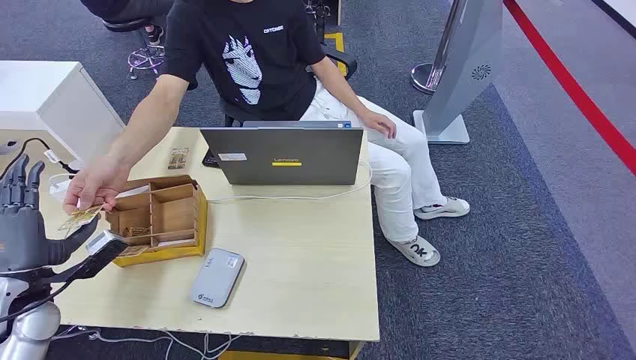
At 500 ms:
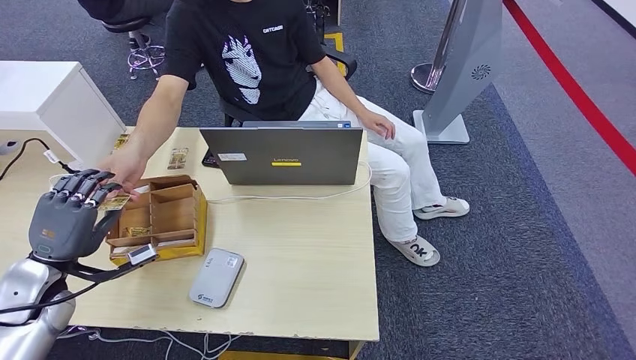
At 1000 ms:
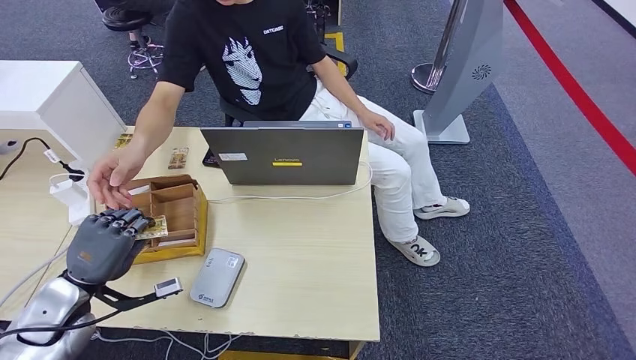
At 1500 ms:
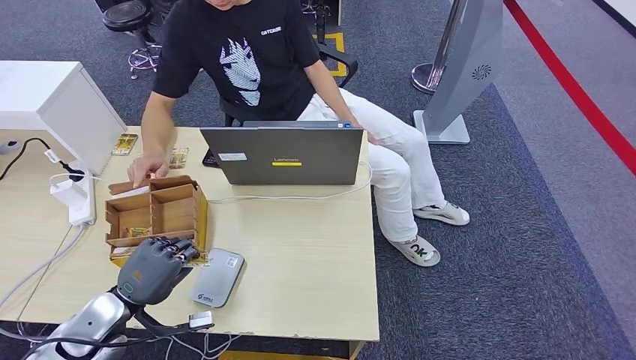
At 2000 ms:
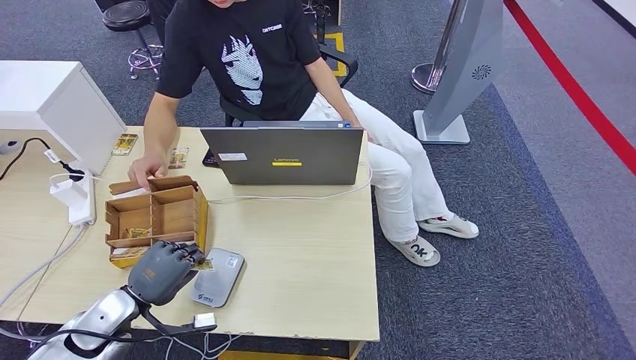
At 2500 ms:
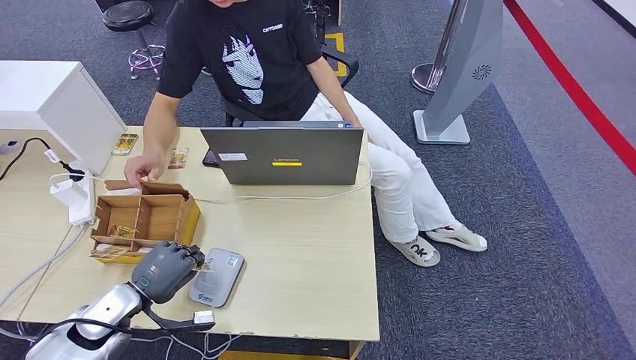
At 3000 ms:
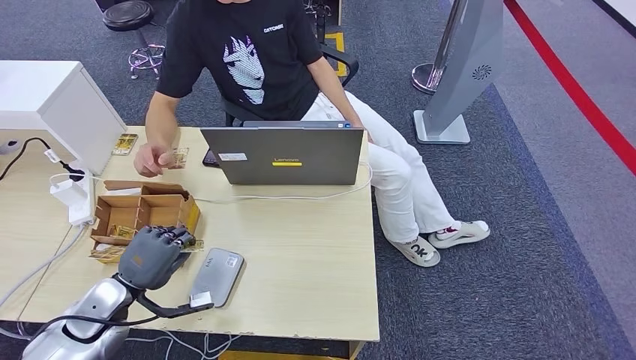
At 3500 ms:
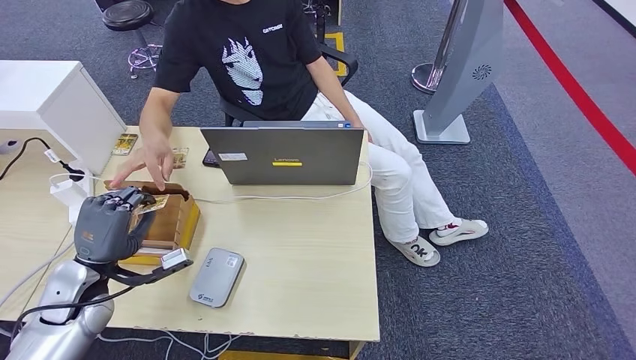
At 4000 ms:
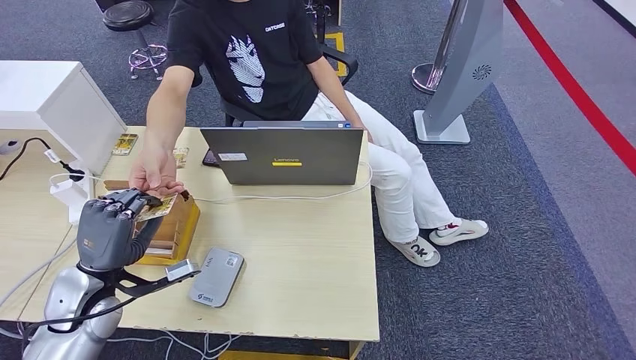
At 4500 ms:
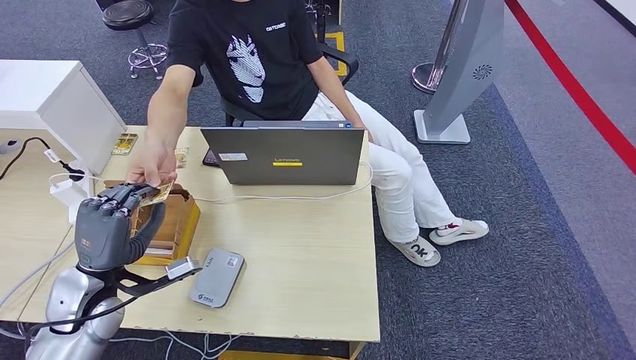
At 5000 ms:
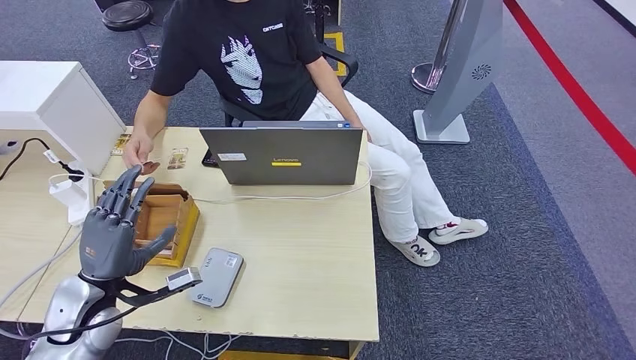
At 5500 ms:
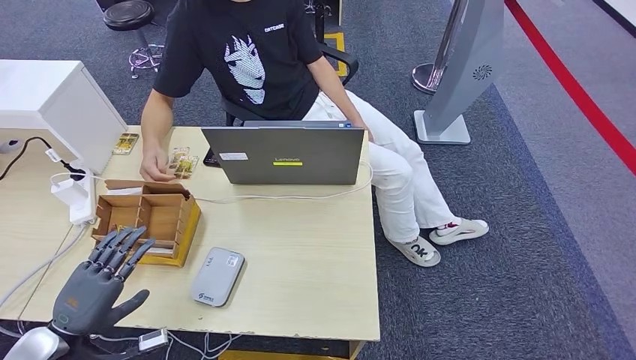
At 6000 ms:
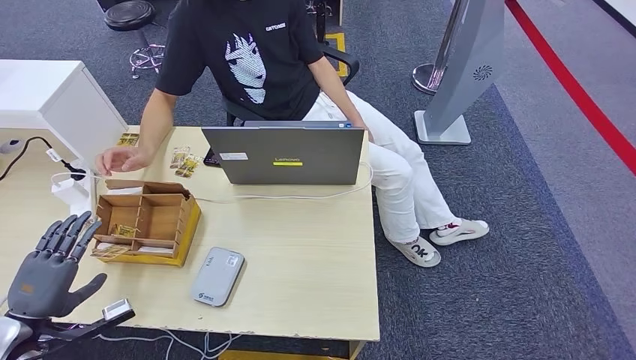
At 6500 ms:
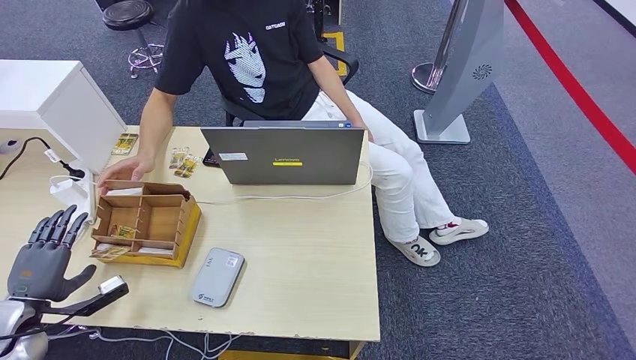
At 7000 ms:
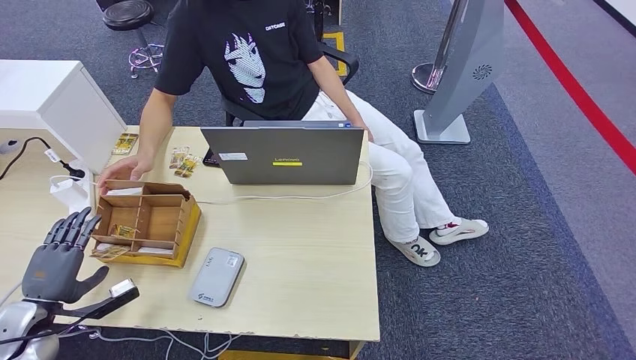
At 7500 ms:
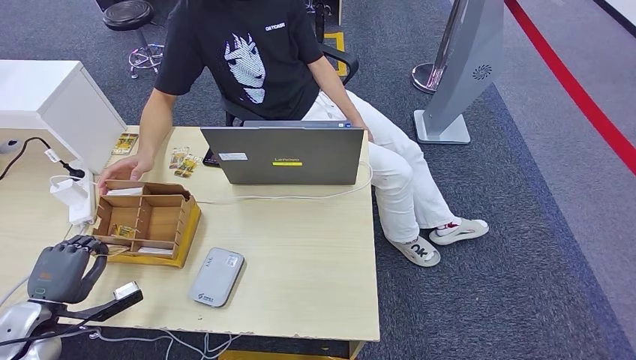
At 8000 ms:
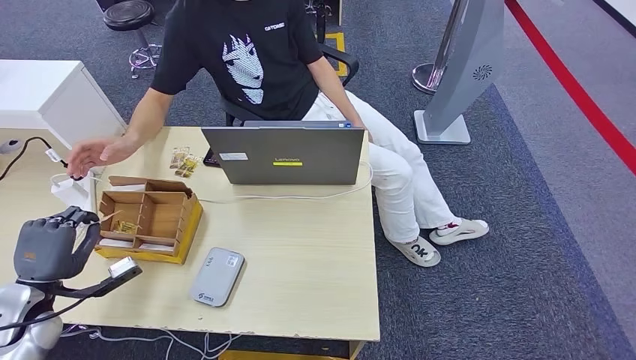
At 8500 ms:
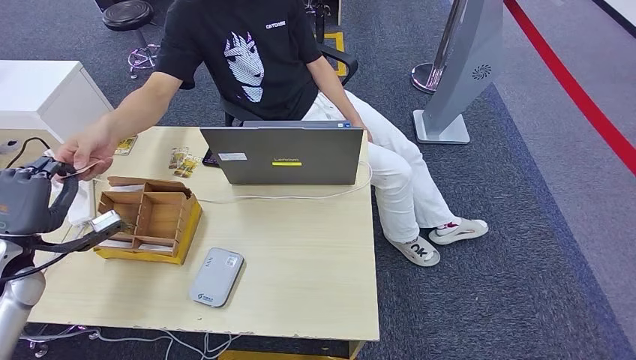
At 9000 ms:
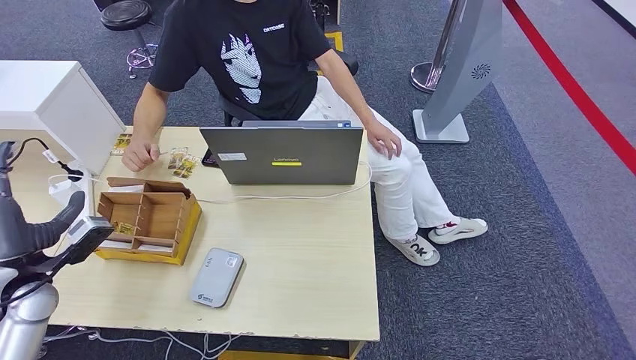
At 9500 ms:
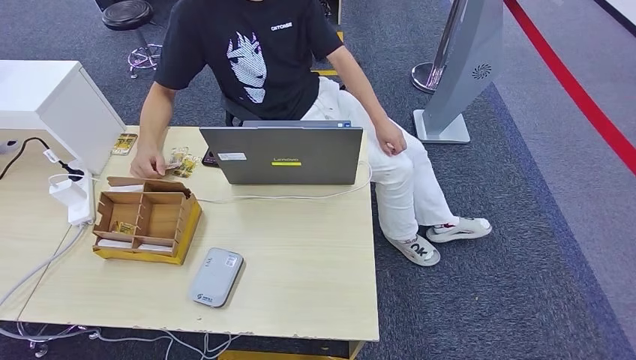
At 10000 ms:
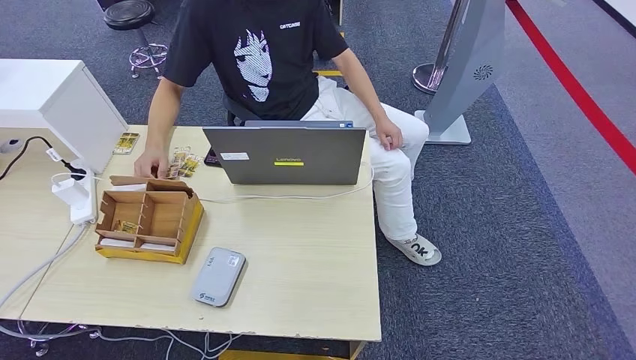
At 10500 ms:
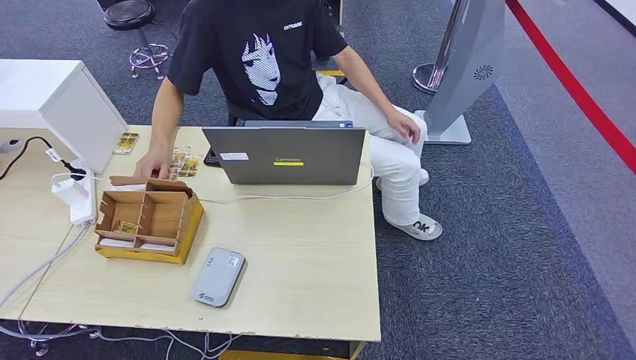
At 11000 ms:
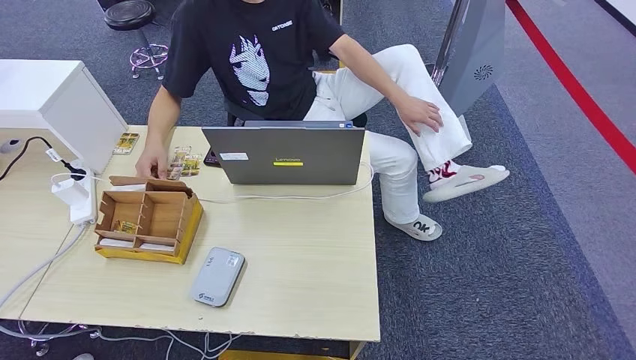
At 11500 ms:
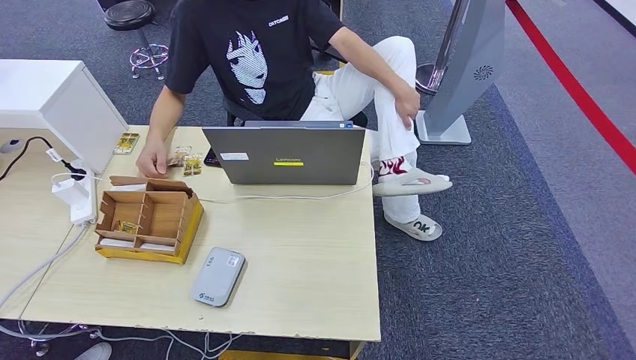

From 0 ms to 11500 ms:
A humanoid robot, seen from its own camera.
Step, from 0 ms to 1500 ms: Take the ID card from the person's hand.
Step, from 2000 ms to 3500 ms: Place the ID card on the card reader.
Step, from 4000 ms to 5500 ms: Hand the ID card to the person.
Step, from 6000 ms to 7500 ms: Pick up the room key from the key card box.
Step, from 8000 ms to 11500 ms: Hand the room key to the person.
From 2000 ms to 4000 ms: The left hand travels upward by some 5 cm.
From 4000 ms to 6000 ms: The left hand moves to the left and backward, about 15 cm.
From 6000 ms to 7500 ms: There are only small adjustments of the hands.
From 7500 ms to 9500 ms: The left hand is displaced backward by about 10 cm.
From 9500 ms to 11500 ms: The left hand travels downward, to the right and backward by approximately 30 cm.

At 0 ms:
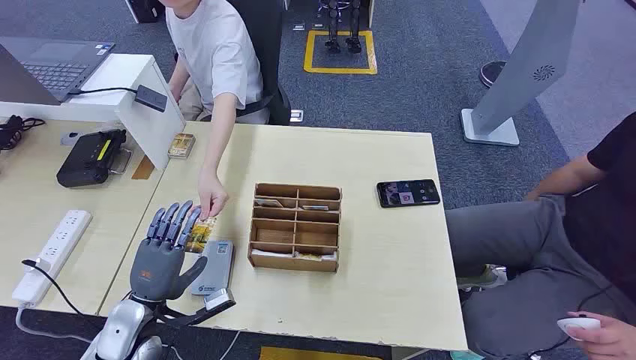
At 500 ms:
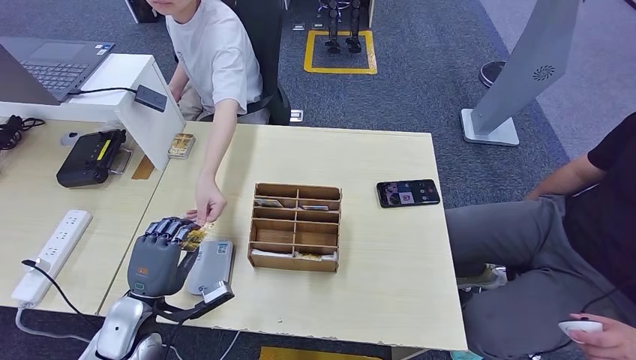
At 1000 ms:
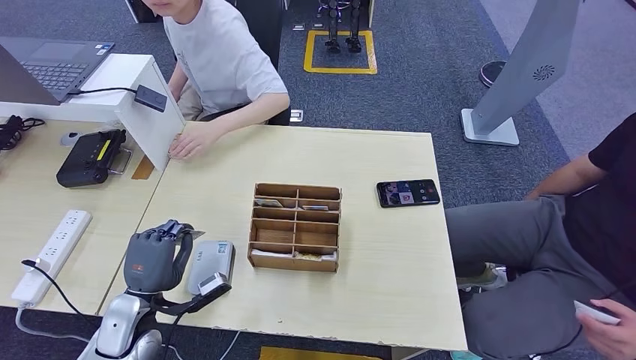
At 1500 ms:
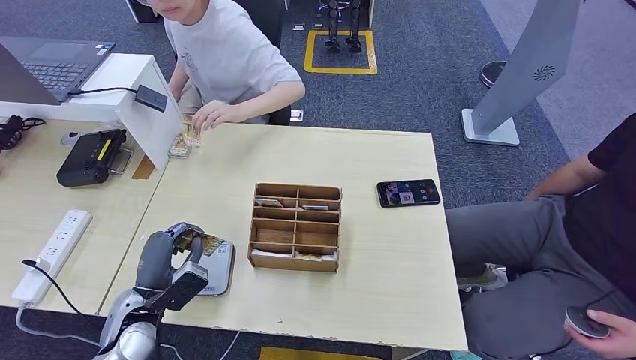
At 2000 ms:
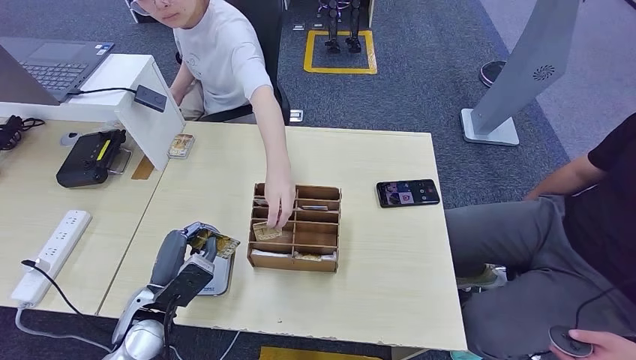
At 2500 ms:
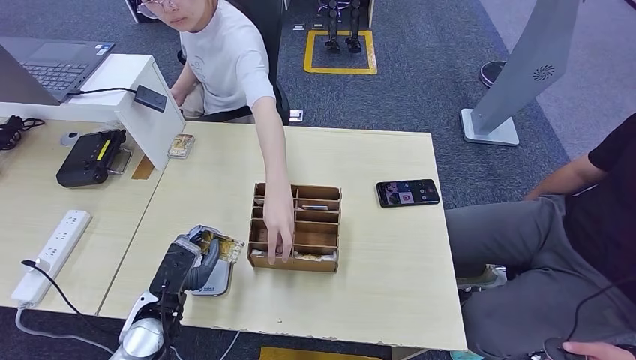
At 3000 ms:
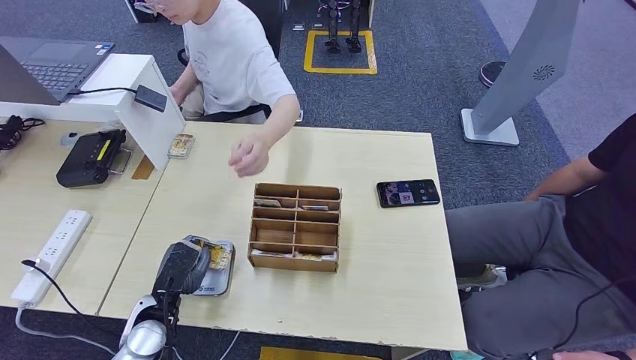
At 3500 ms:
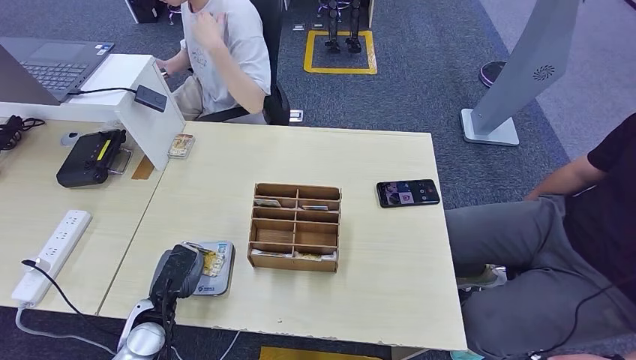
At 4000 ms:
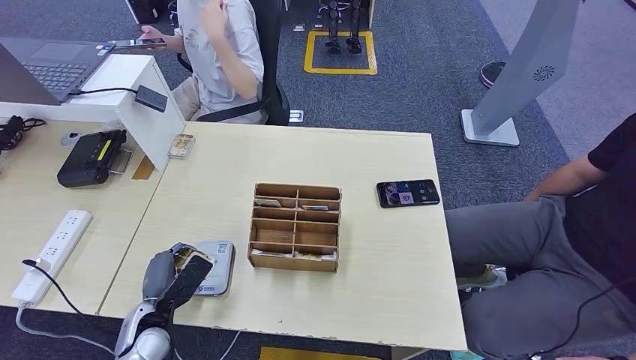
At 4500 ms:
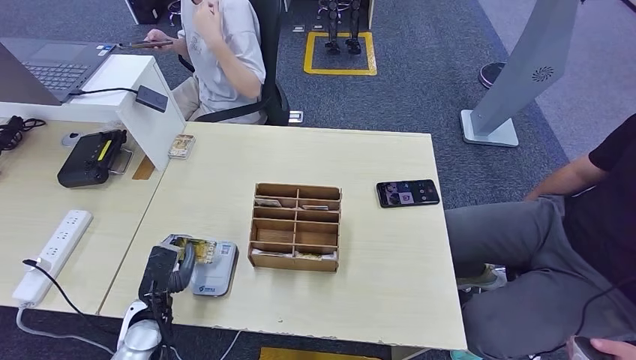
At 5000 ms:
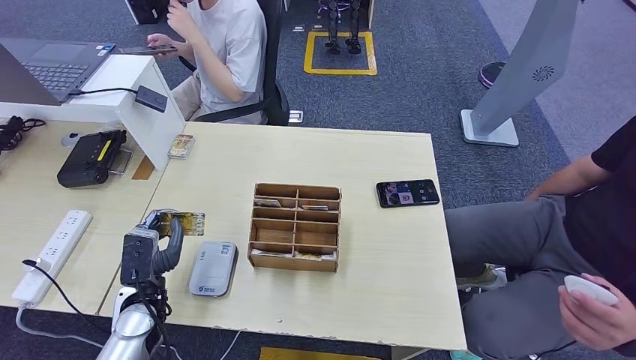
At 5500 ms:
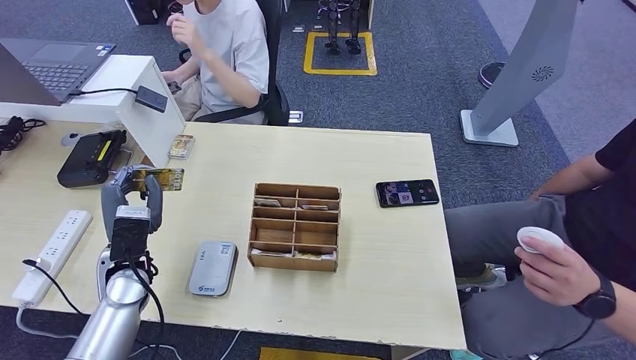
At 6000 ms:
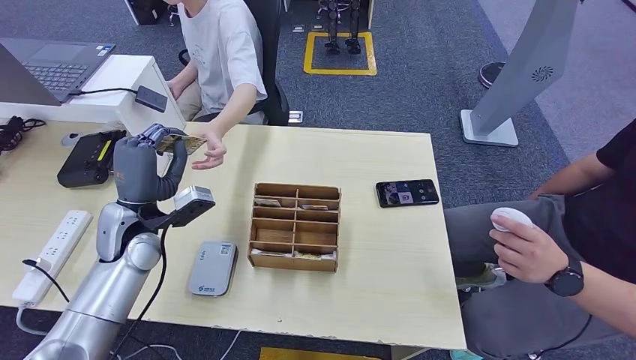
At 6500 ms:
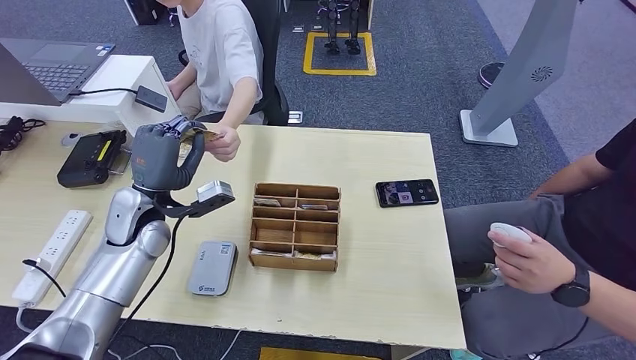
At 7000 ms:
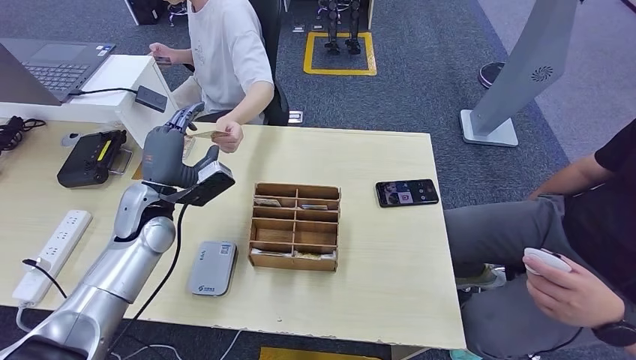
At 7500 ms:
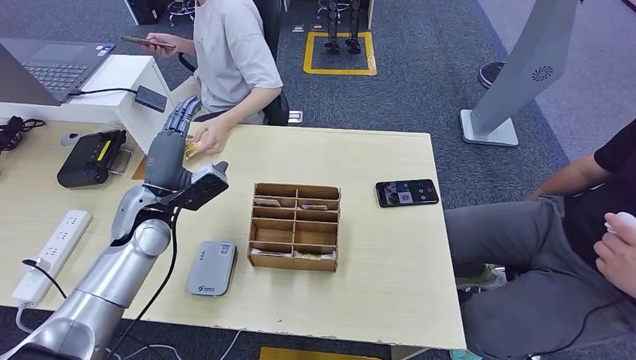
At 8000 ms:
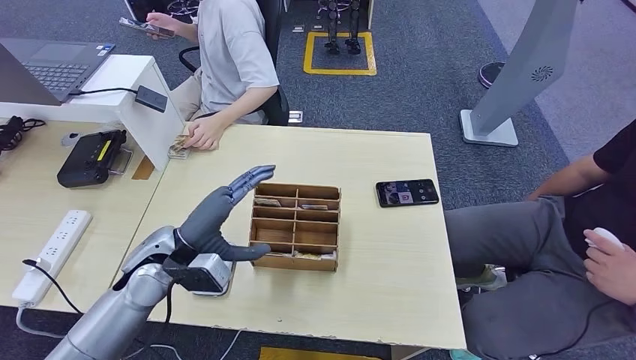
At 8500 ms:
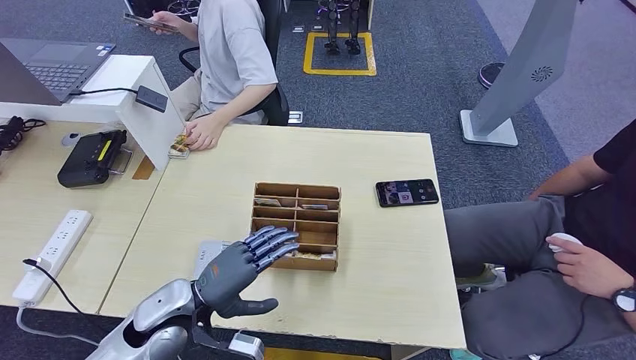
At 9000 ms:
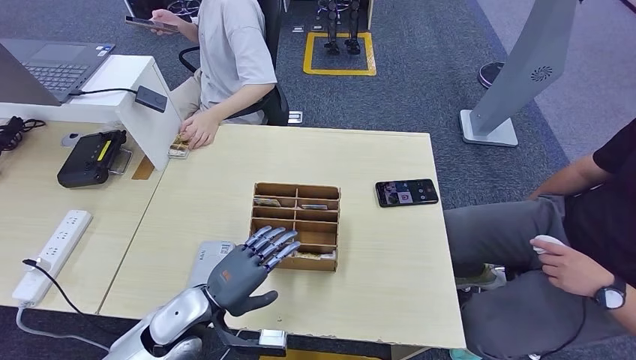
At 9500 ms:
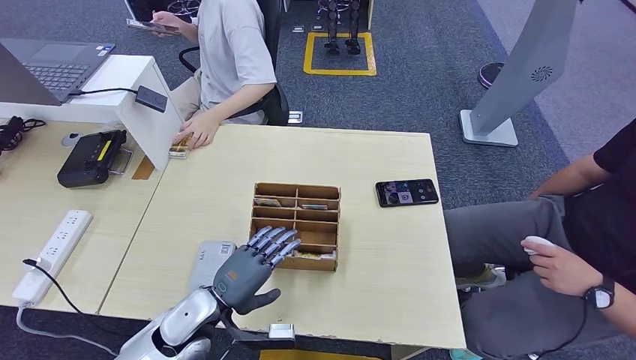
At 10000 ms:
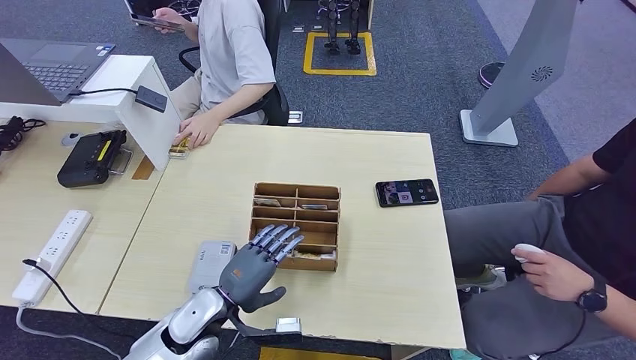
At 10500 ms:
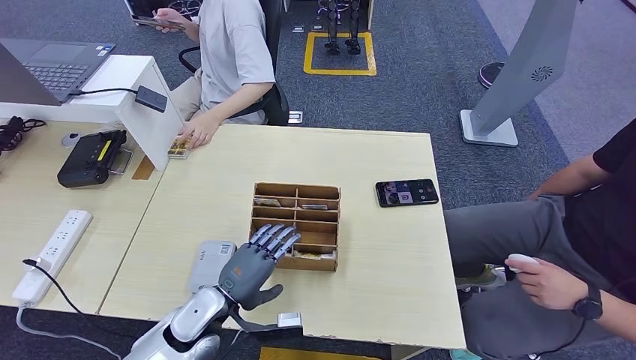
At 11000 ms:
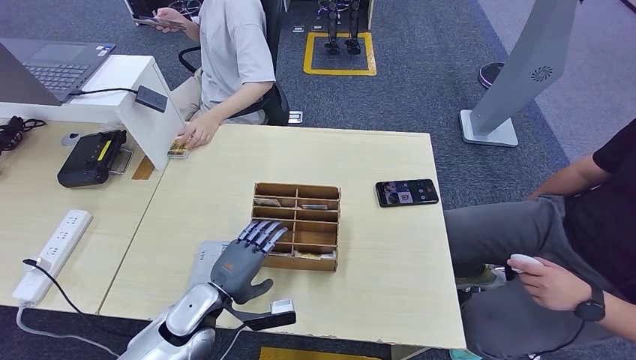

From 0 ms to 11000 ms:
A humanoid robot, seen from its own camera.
Step, from 0 ms to 1000 ms: Take the ID card from the person's hand.
Step, from 1500 ms to 4000 ms: Place the ID card on the card reader.
Step, from 4500 ms to 7000 ms: Hand the ID card to the person.
From 2000 ms to 3500 ms: The left hand moves downward, about 5 cm.
From 3500 ms to 5500 ms: The left hand goes some 10 cm upward and forward.
From 5500 ms to 7500 ms: The left hand shifts some 10 cm forward and upward.
From 7500 ms to 9000 ms: The left hand travels backward, downward and to the right by approximately 20 cm.
From 9000 ms to 11000 ms: The hands move only a little.
